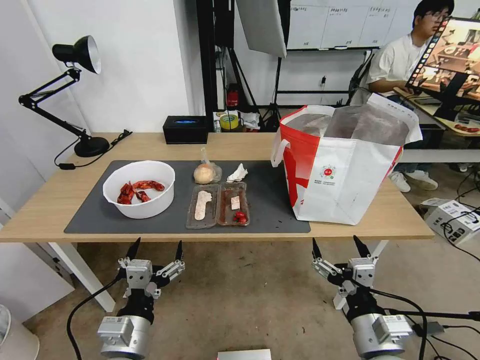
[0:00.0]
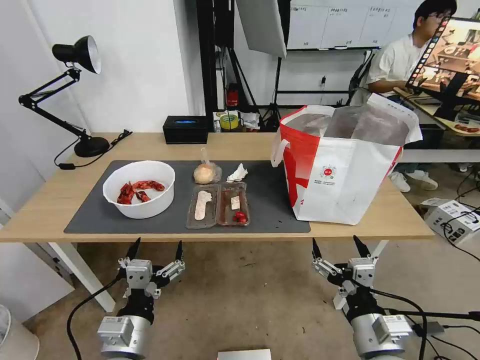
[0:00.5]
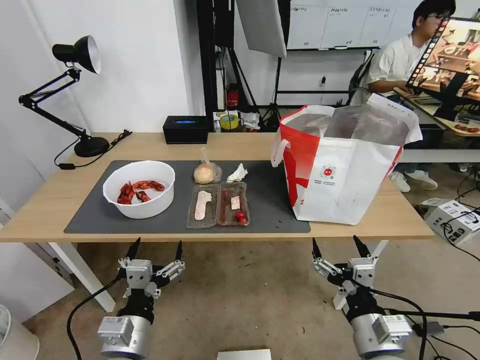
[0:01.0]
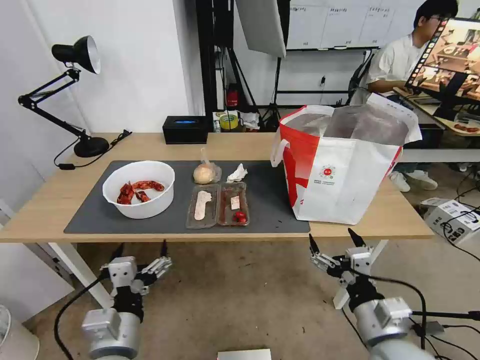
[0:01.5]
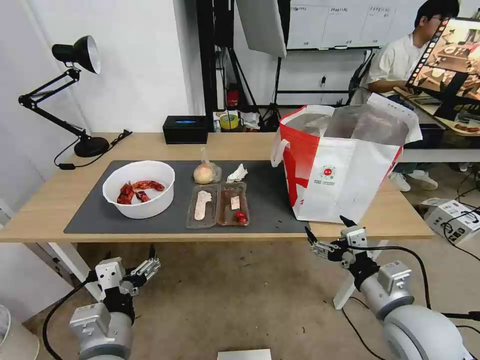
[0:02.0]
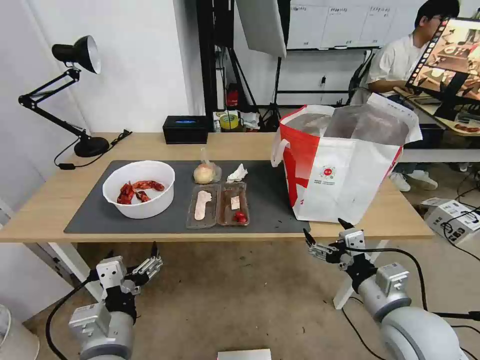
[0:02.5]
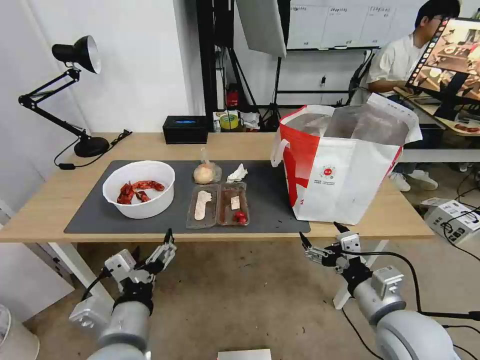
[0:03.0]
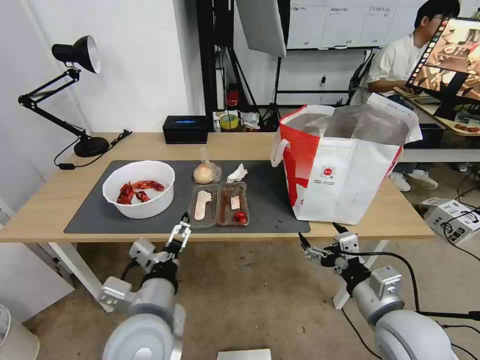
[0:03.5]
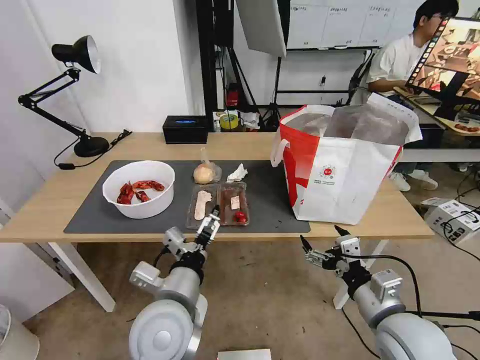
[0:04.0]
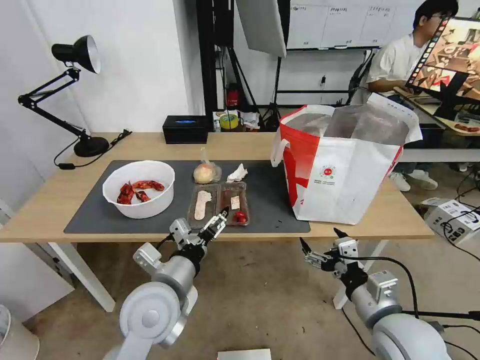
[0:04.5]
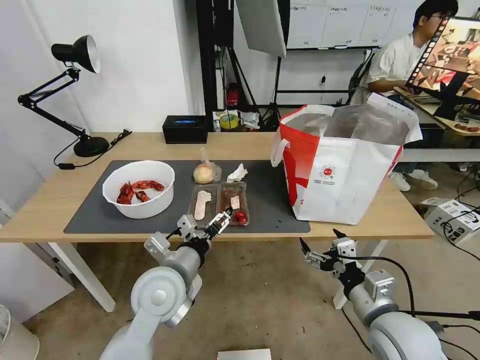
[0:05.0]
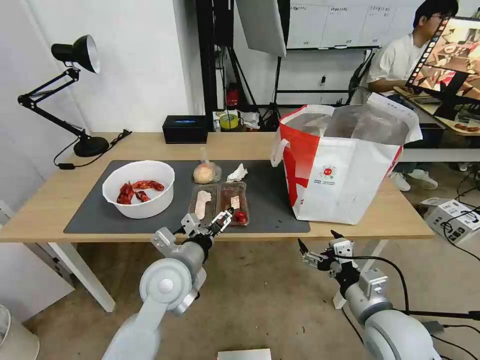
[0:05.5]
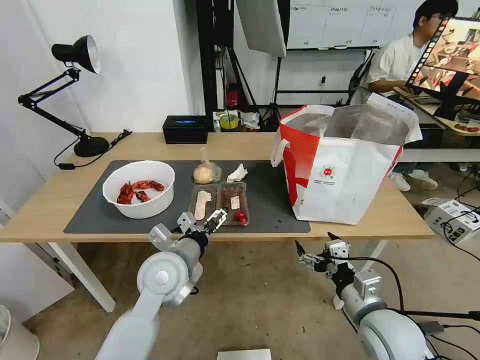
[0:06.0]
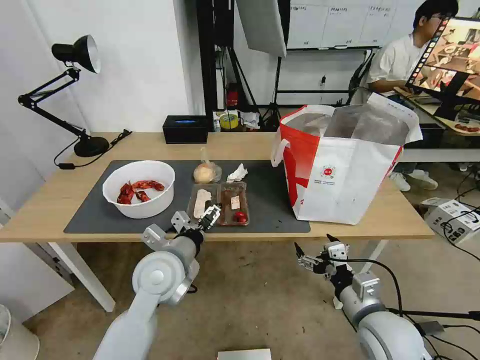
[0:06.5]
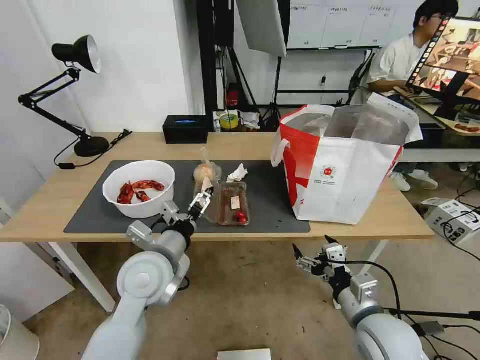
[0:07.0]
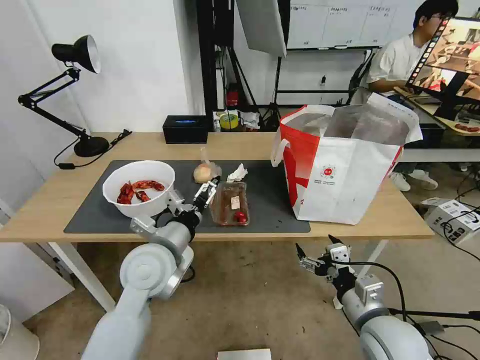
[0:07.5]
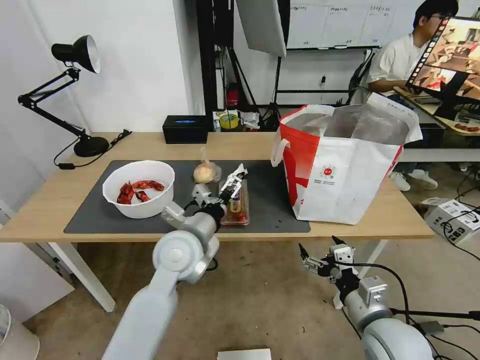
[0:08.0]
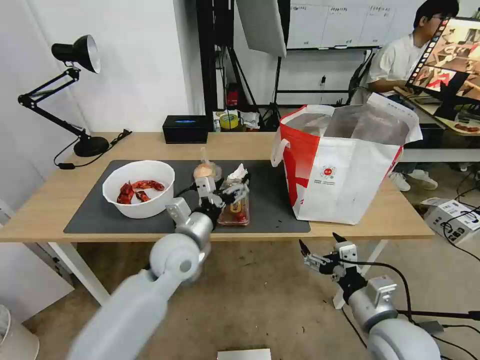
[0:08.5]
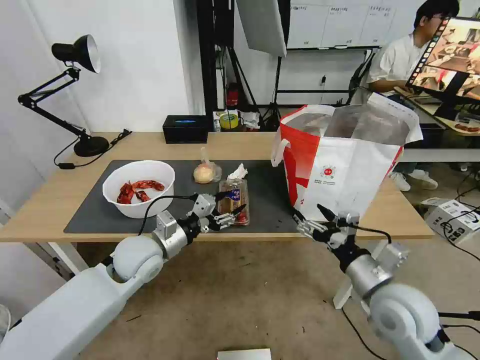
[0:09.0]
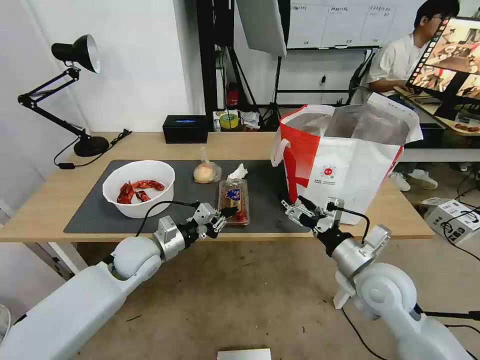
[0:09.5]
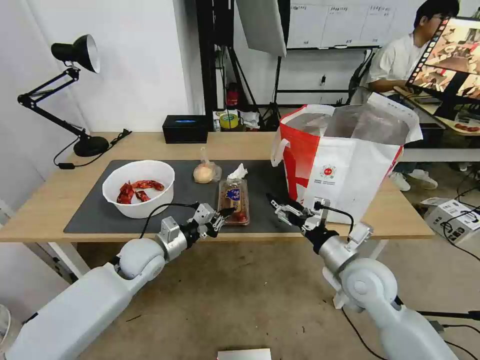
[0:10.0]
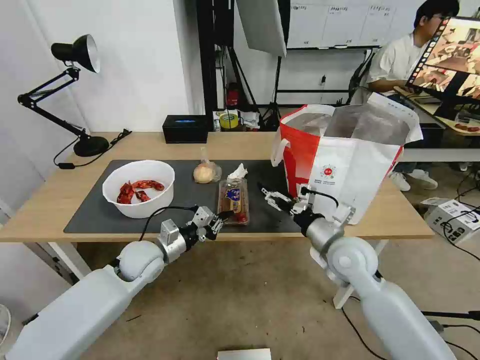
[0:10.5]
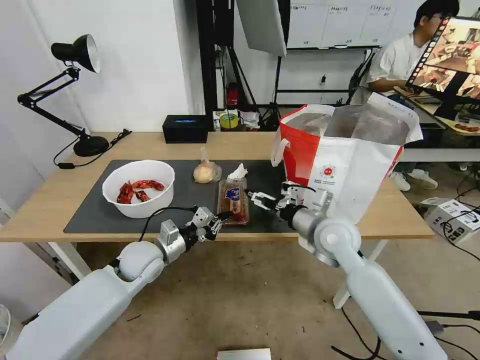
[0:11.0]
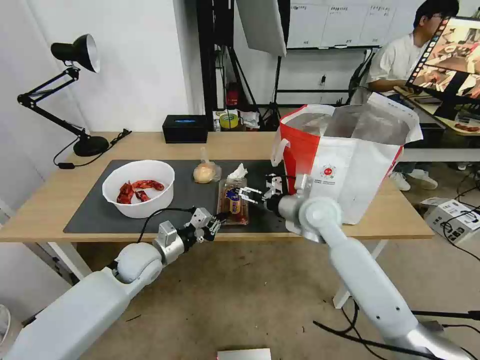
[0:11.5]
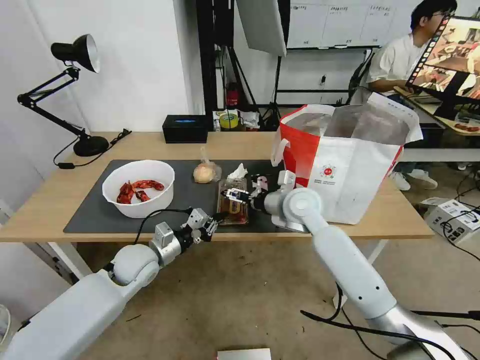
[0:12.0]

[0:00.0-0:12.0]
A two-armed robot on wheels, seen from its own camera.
Task of the whole recording: Pick up the trash from the table and place it into the takeout bag.
0:02.0 to 0:04.0: The left gripper goes about 10 cm to the right and forward.
0:04.0 to 0:06.0: The left gripper moves forward, roughly 10 cm.
0:06.0 to 0:08.0: The left gripper shifts by about 5 cm.
0:08.0 to 0:10.0: The right gripper heads forward, covering about 10 cm, while the left gripper is displaced to the left and downward by roughly 15 cm, and closes its fingers.
0:10.0 to 0:12.0: The right gripper travels forward and to the left by some 20 cm.

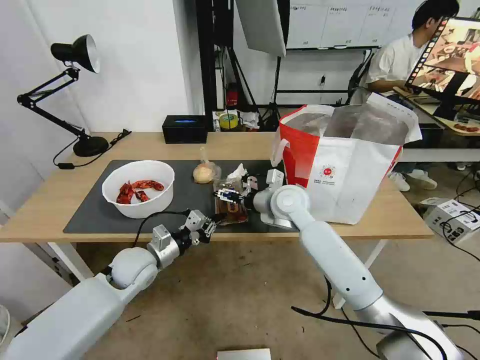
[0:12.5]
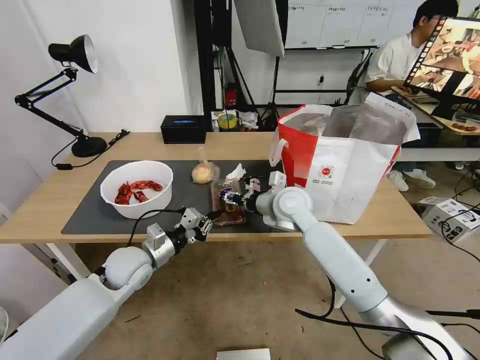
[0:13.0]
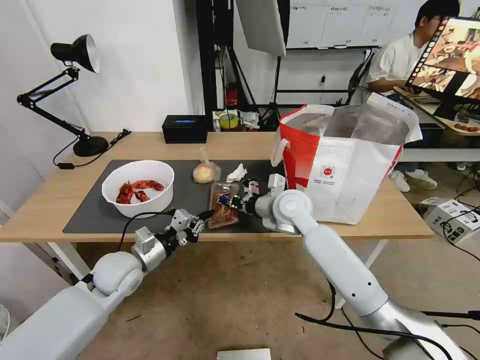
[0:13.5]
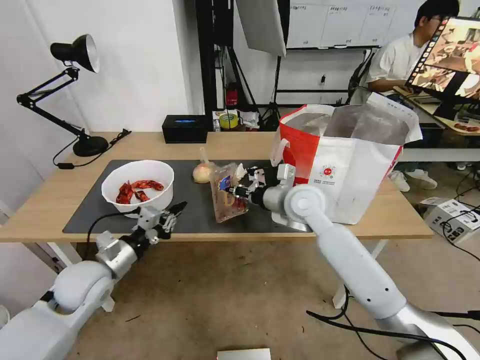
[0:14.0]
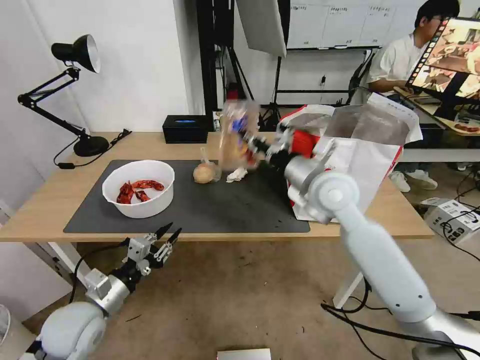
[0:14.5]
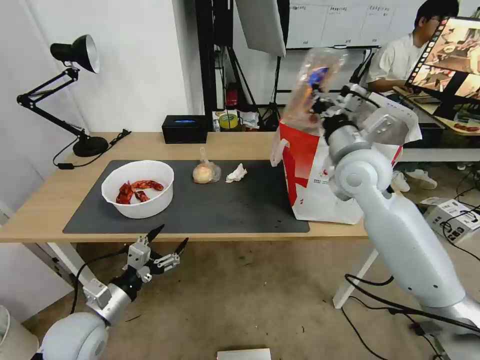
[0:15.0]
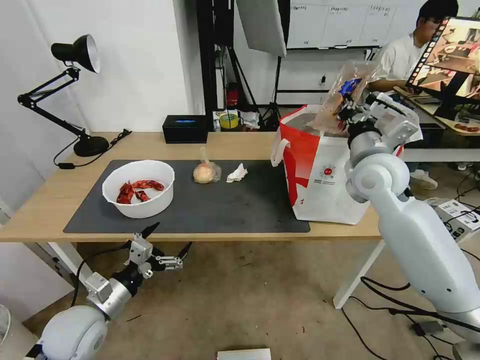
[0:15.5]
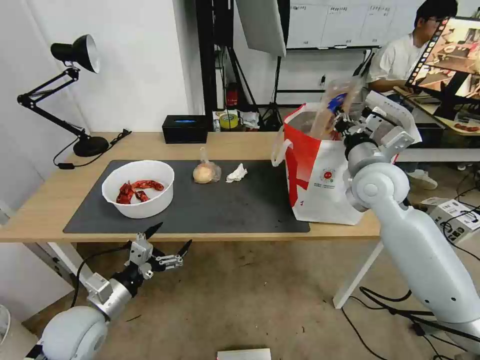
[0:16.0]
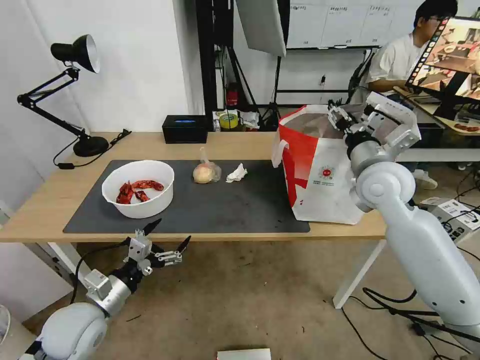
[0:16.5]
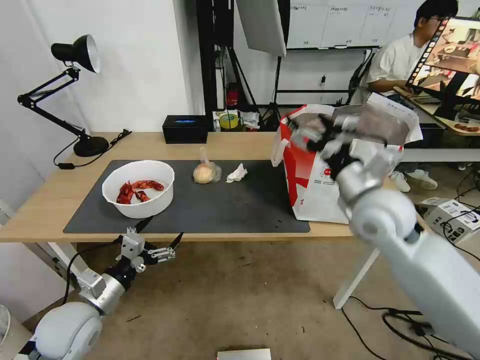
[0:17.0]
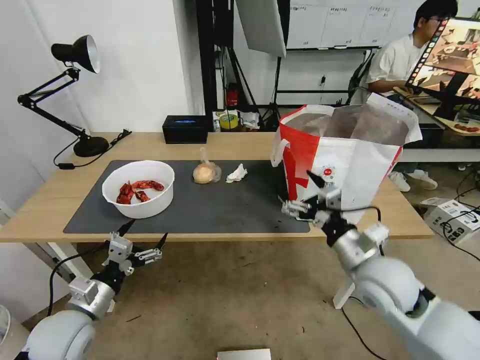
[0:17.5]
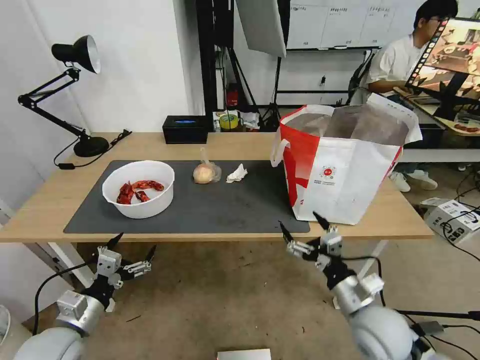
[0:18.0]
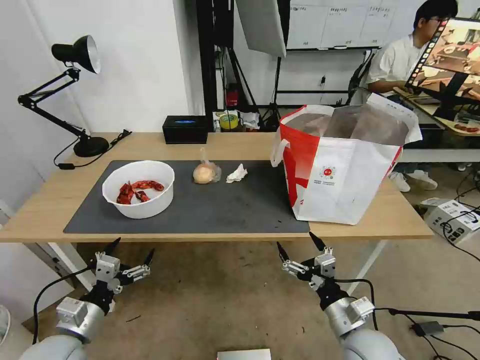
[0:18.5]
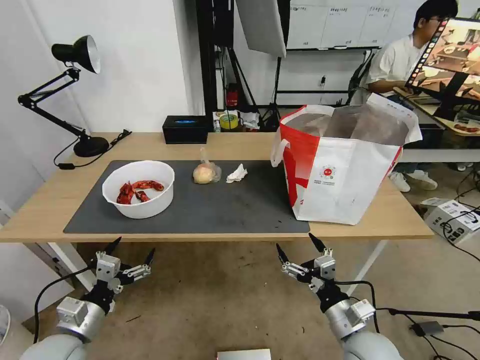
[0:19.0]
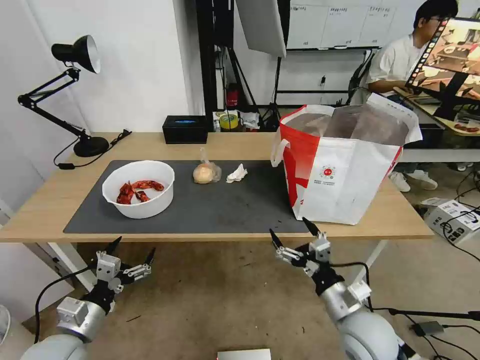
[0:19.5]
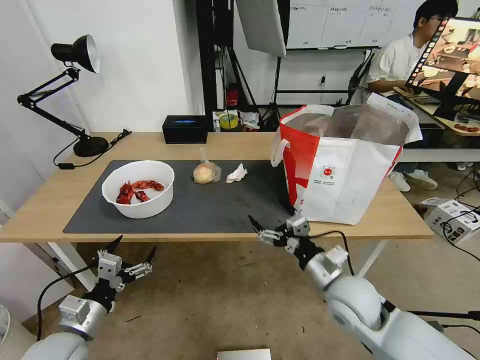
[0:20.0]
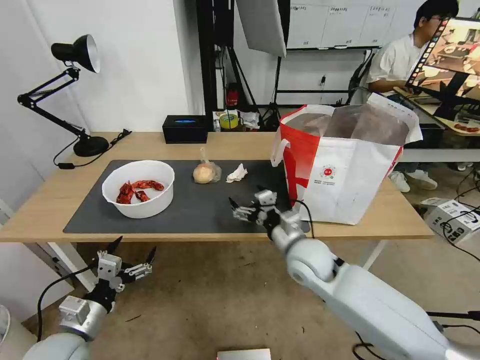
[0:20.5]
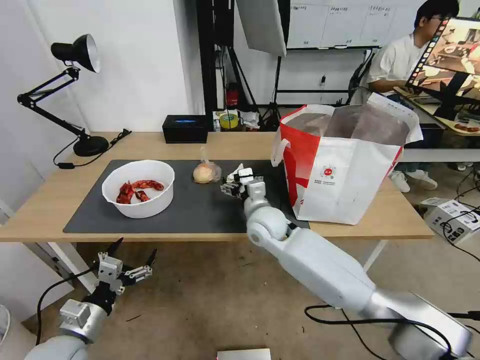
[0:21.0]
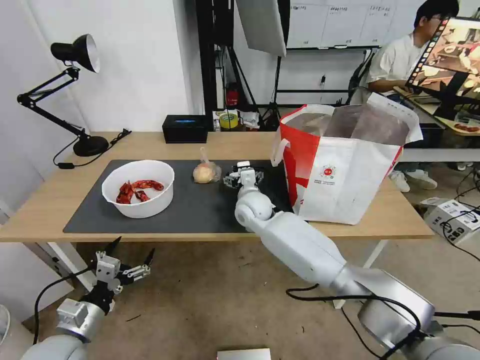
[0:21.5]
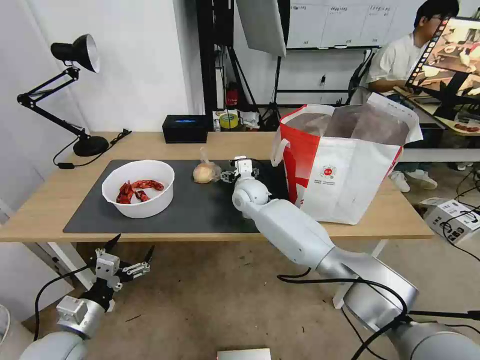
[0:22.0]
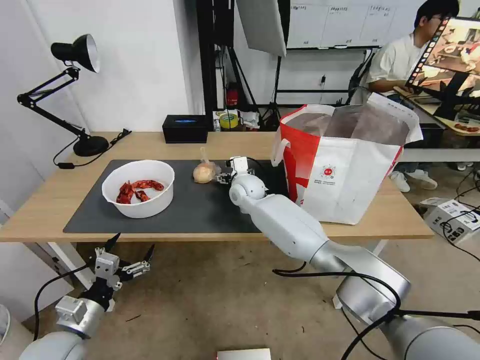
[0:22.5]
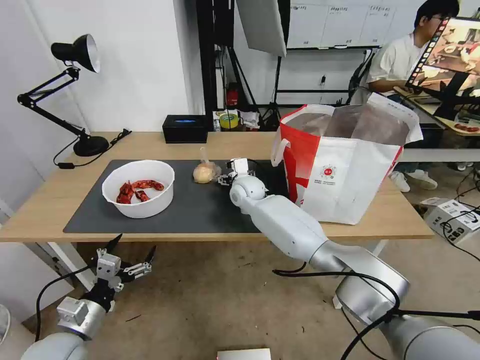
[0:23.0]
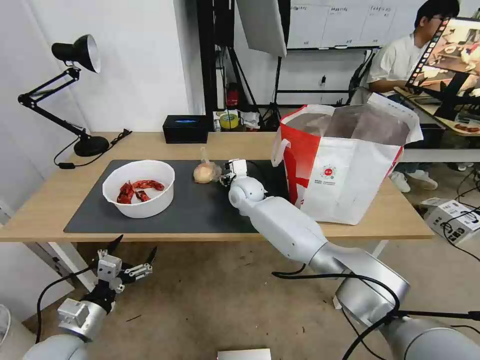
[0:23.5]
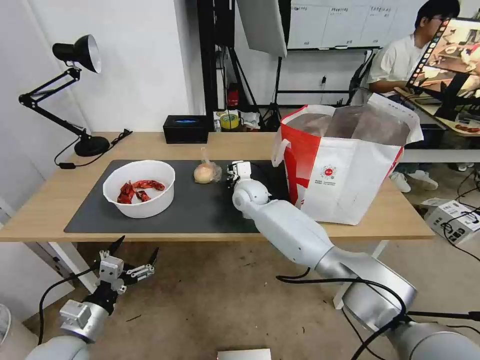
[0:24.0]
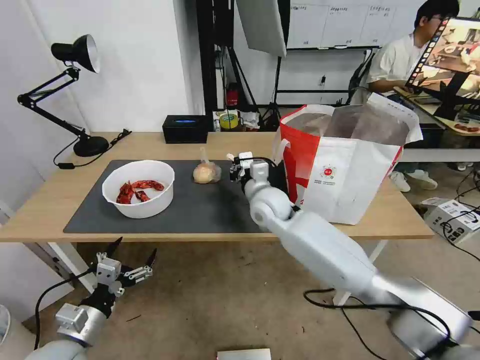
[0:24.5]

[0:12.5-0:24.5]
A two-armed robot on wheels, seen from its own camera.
Task of the whole recording: Pick up the trash from the table and place it into the takeout bag.
0:12.5 to 0:14.5: The left gripper is displaced backward and to the left by some 15 cm. Meanwhile the right gripper heads upward, to the right and backward, covering about 10 cm, and closes.
0:14.5 to 0:16.5: The right gripper moves to the right, some 10 cm, and opens its fingers. The left gripper opens up.
0:16.5 to 0:18.5: The left gripper moves about 5 cm, while the right gripper shifts some 35 cm downward and backward.
0:18.5 to 0:20.5: The right gripper moves forward, to the left and upward, roughly 20 cm.
0:20.5 to 0:22.5: The right gripper goes approximately 25 cm forward and to the left.
0:22.5 to 0:24.5: The right gripper moves backward and to the right, roughly 10 cm, and closes.

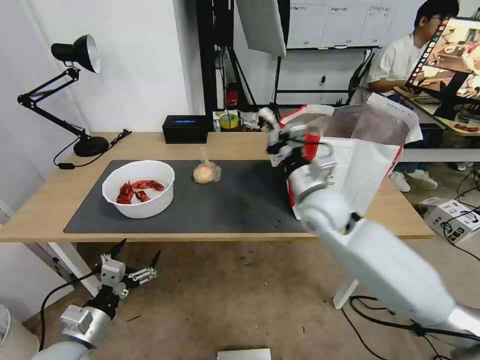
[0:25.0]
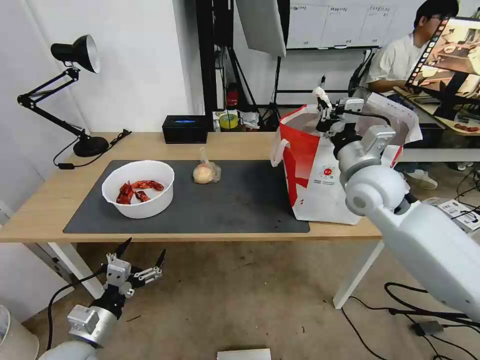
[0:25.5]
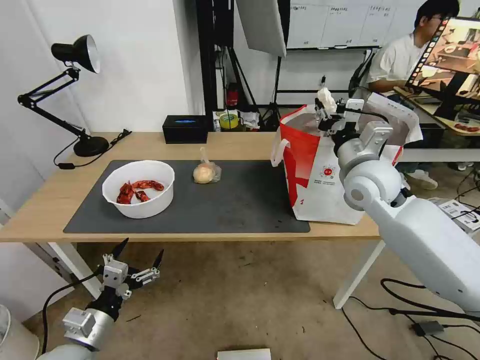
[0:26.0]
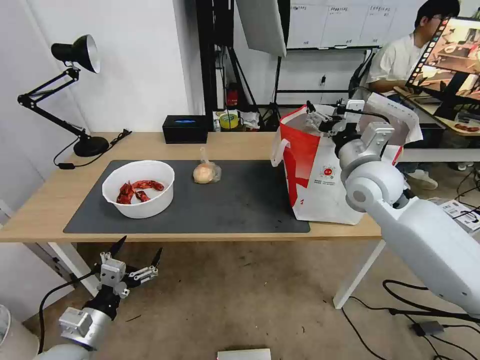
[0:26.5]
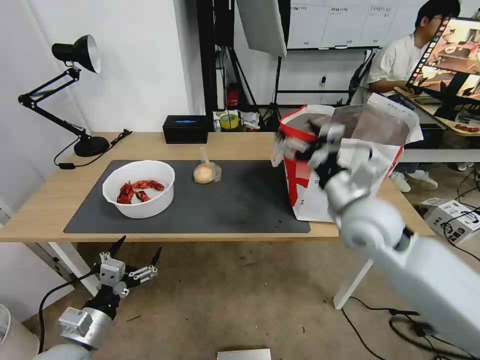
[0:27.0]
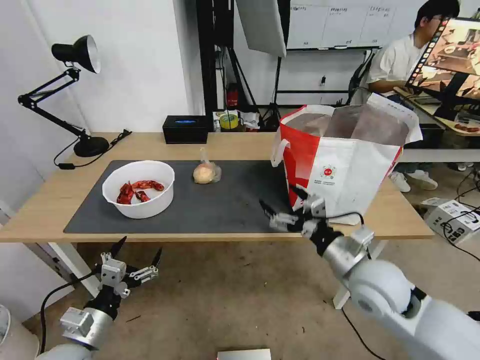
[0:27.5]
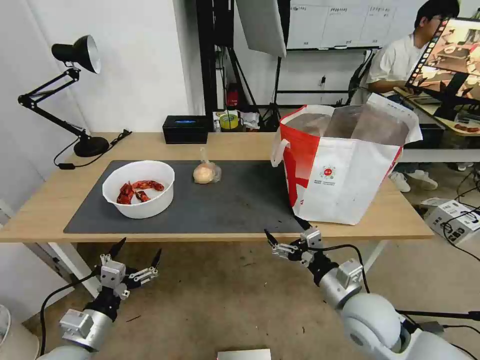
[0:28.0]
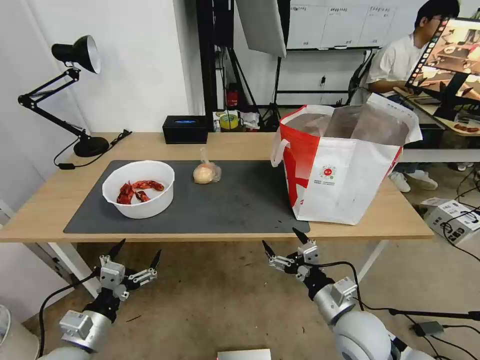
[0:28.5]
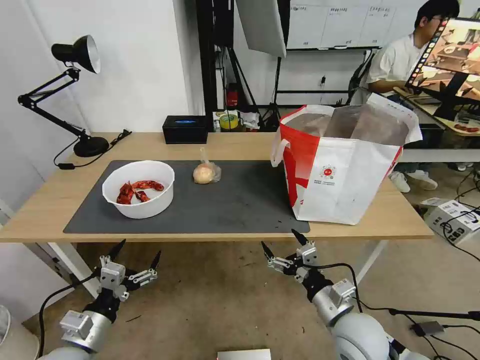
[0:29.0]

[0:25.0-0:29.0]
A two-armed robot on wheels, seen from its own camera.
Task of the whole recording: Pick up the trash from the table and place it into the takeout bag.
0:25.0 to 0:27.0: The right gripper goes some 10 cm to the right and backward, and opens its fingers.
0:27.0 to 0:29.0: The right gripper goes approximately 25 cm downward and backward.
